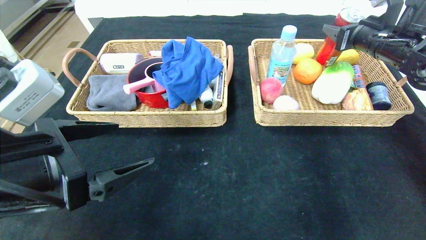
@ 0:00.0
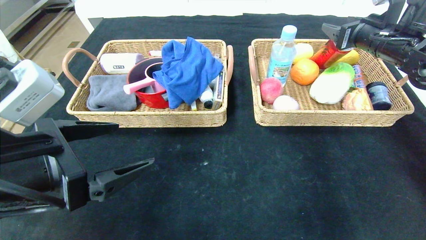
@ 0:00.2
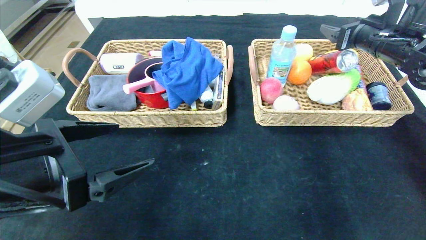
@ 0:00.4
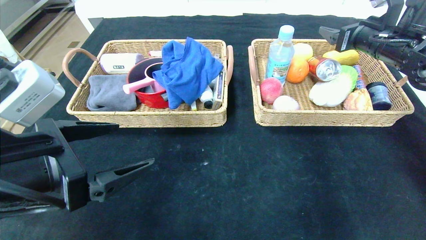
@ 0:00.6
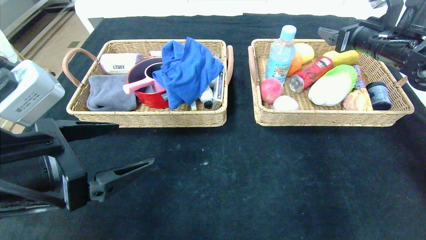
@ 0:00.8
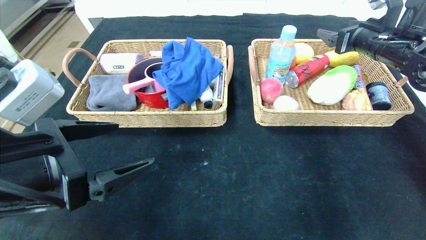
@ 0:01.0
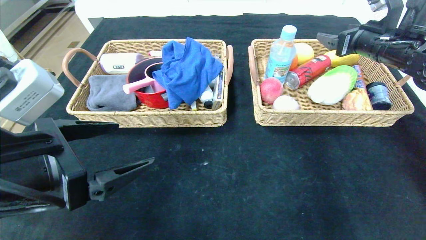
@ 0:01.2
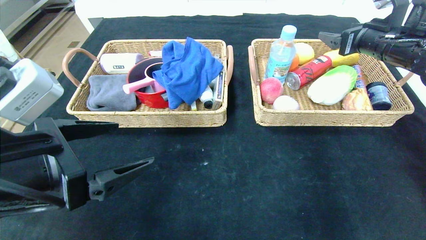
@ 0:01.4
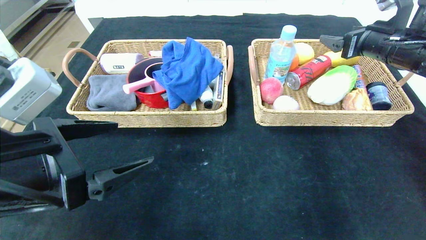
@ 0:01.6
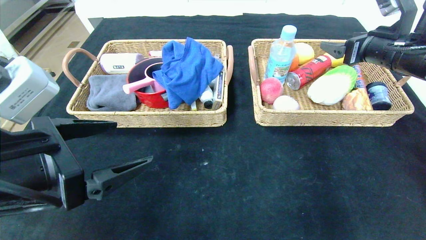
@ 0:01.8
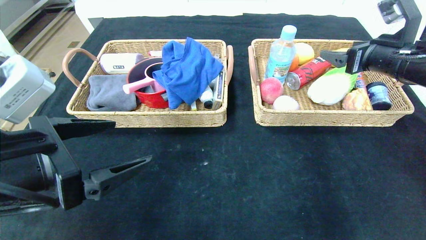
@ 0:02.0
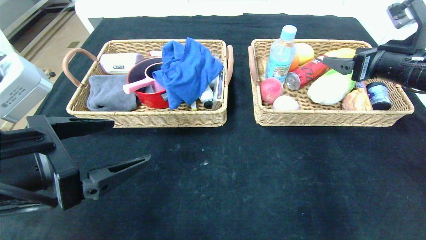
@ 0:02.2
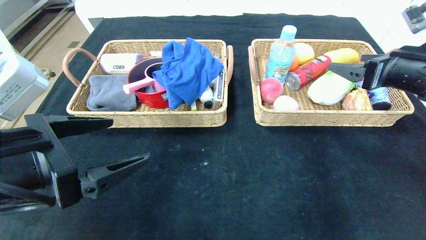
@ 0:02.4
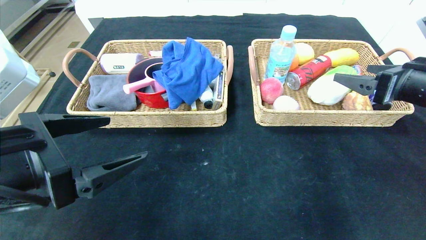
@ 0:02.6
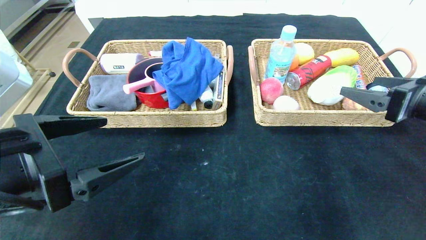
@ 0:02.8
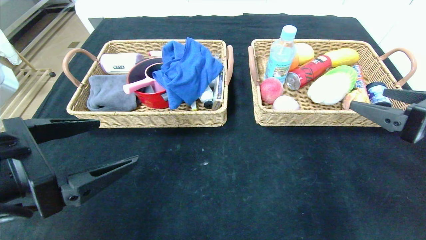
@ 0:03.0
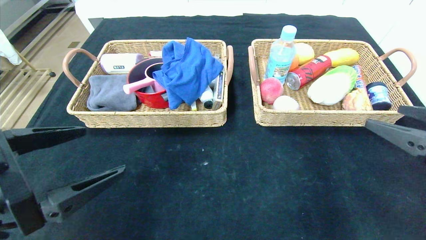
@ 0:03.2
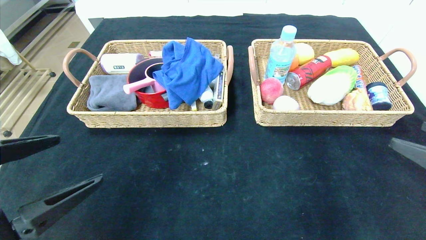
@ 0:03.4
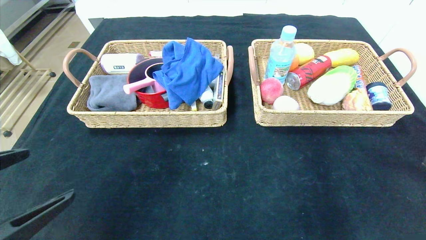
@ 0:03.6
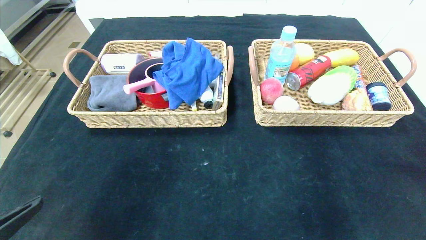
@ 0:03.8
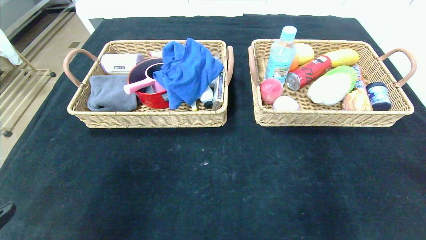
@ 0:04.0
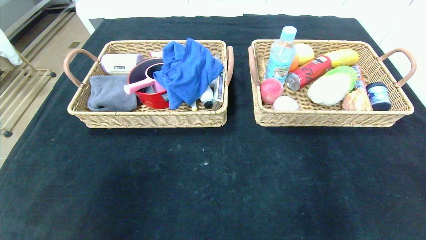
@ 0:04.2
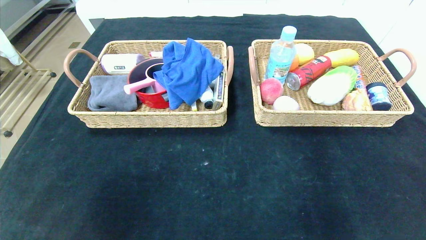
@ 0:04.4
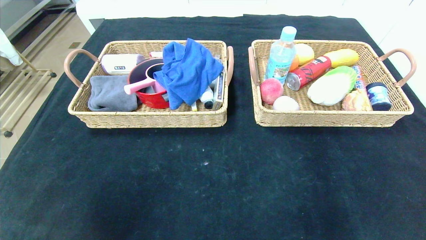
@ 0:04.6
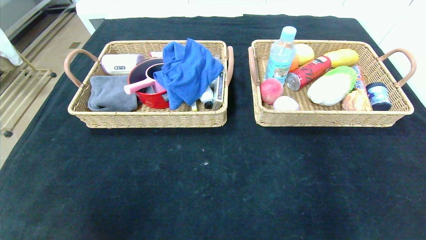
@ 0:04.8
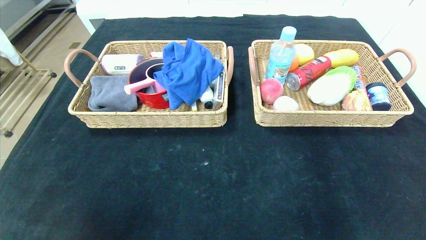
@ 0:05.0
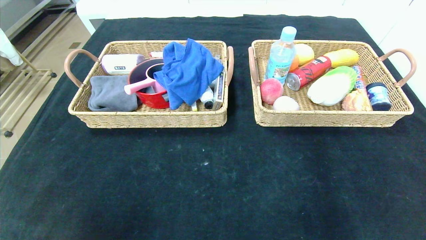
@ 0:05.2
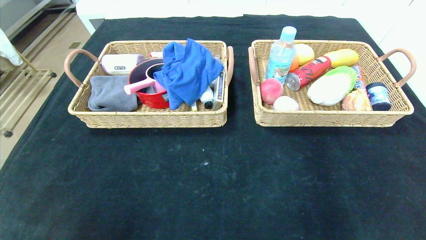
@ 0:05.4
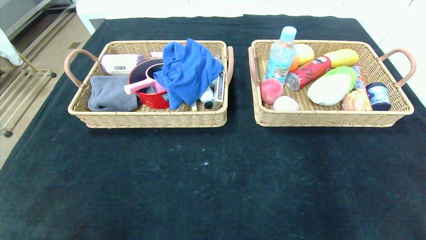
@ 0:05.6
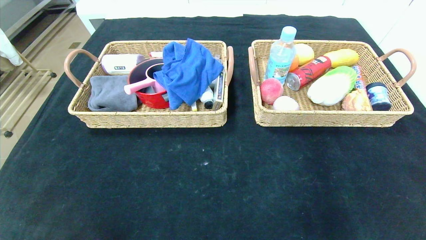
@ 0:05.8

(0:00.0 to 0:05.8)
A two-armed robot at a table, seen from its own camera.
0:00.0 - 0:01.4: The right gripper opens.
0:01.4 - 0:02.8: The right gripper shifts about 15 cm backward.
0:02.8 - 0:04.4: The right gripper travels backward by approximately 25 cm; the left gripper travels backward, to the left and downward by approximately 20 cm.
